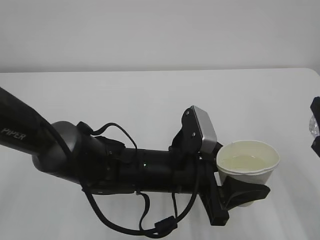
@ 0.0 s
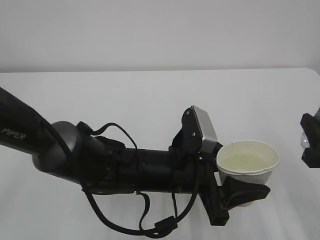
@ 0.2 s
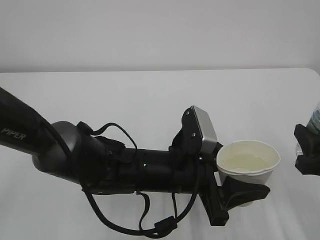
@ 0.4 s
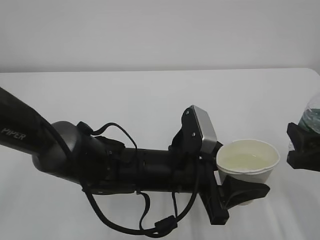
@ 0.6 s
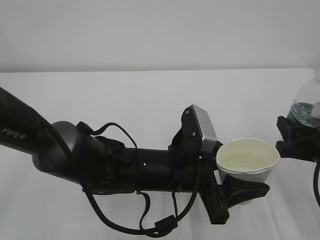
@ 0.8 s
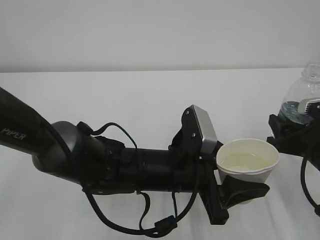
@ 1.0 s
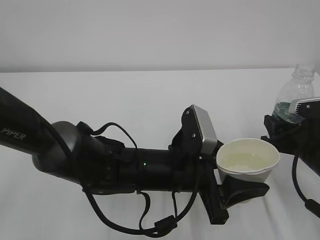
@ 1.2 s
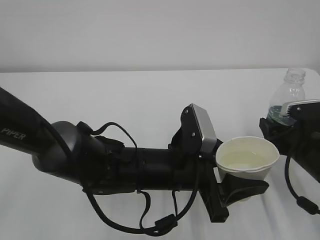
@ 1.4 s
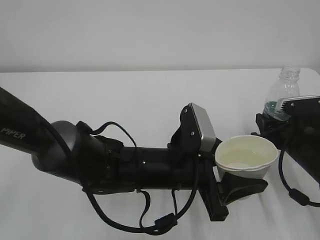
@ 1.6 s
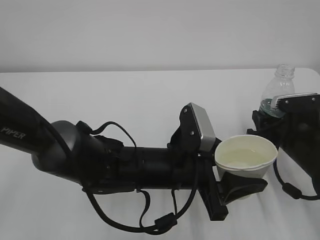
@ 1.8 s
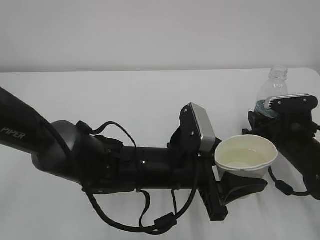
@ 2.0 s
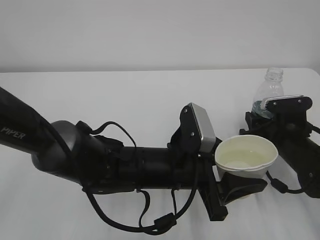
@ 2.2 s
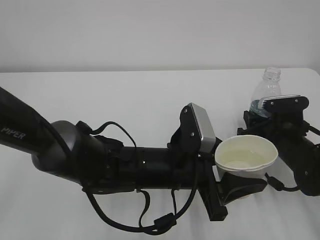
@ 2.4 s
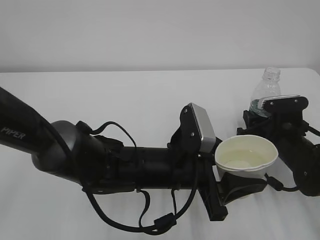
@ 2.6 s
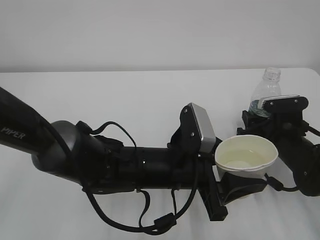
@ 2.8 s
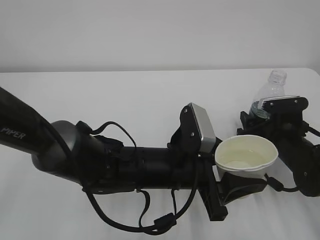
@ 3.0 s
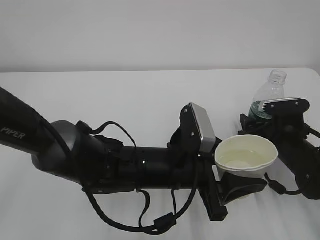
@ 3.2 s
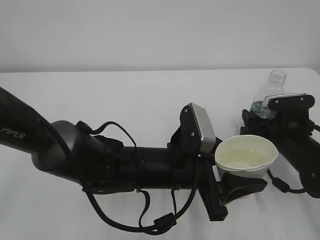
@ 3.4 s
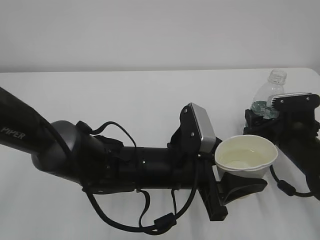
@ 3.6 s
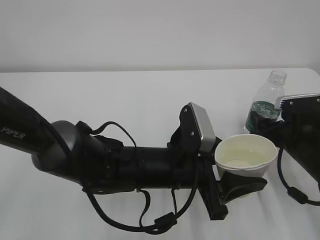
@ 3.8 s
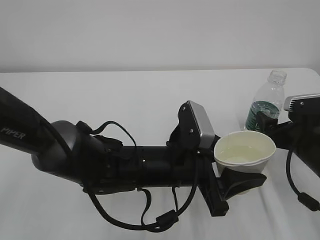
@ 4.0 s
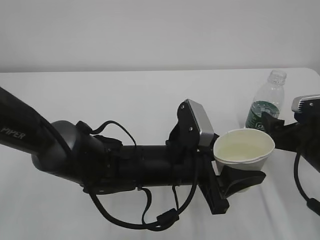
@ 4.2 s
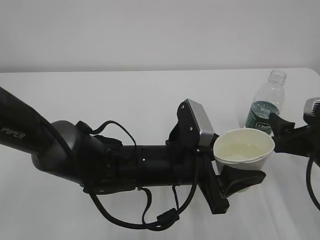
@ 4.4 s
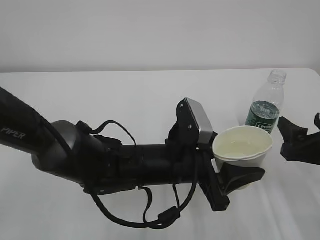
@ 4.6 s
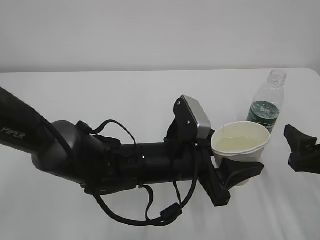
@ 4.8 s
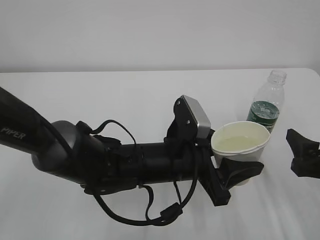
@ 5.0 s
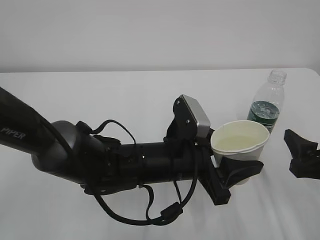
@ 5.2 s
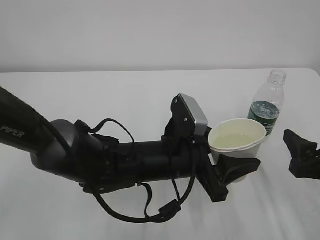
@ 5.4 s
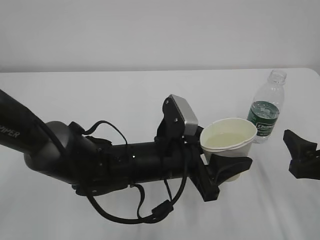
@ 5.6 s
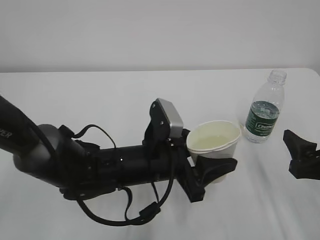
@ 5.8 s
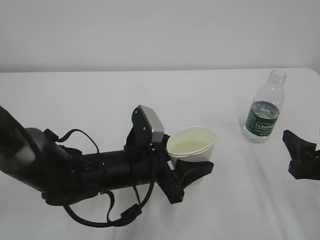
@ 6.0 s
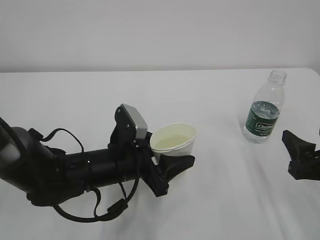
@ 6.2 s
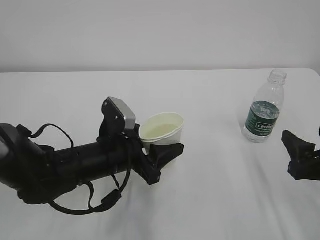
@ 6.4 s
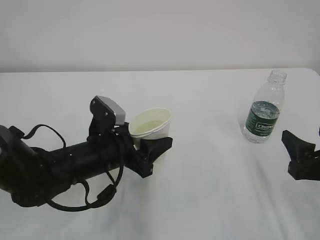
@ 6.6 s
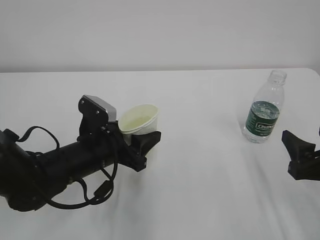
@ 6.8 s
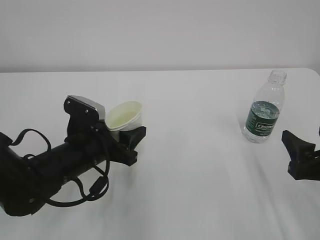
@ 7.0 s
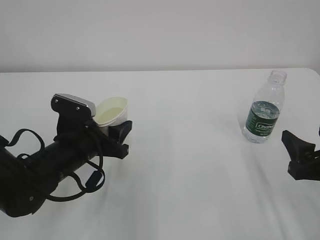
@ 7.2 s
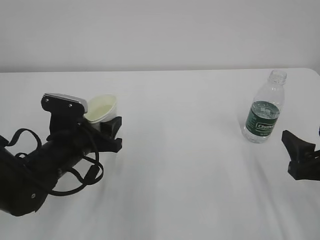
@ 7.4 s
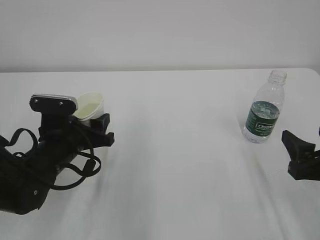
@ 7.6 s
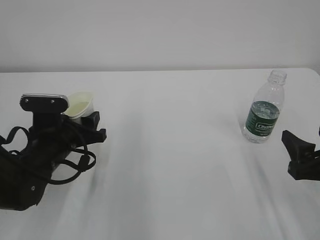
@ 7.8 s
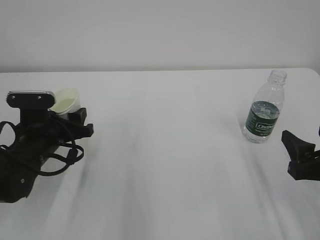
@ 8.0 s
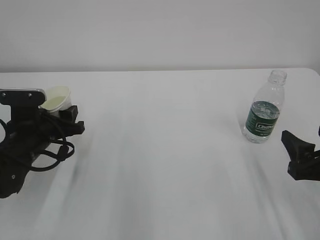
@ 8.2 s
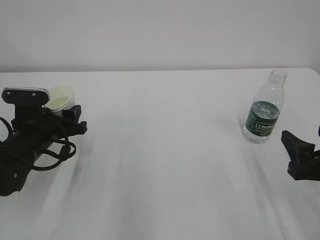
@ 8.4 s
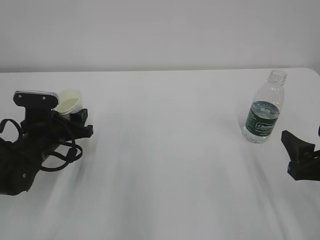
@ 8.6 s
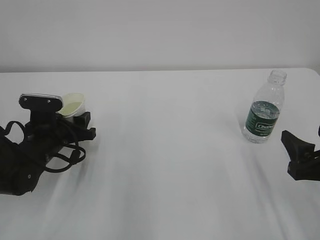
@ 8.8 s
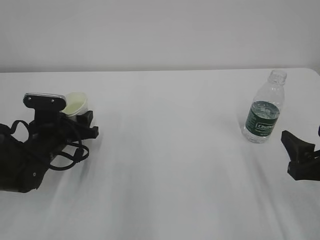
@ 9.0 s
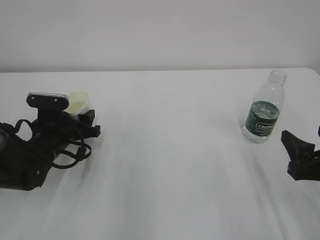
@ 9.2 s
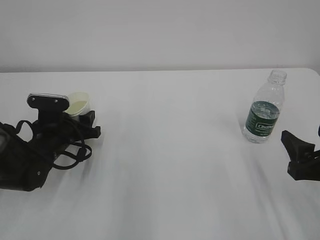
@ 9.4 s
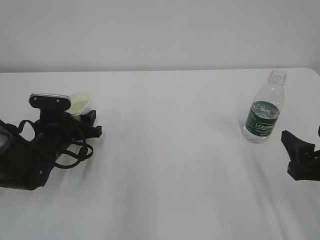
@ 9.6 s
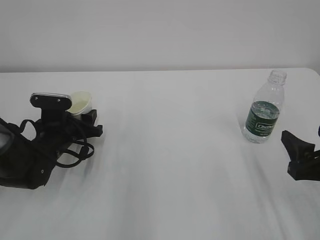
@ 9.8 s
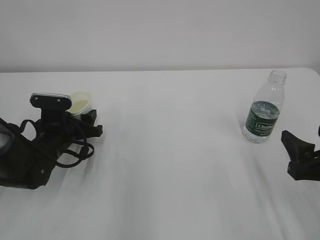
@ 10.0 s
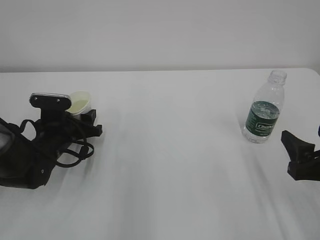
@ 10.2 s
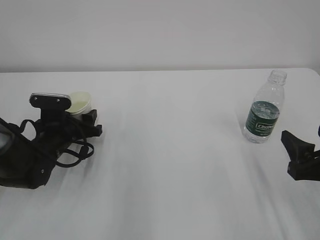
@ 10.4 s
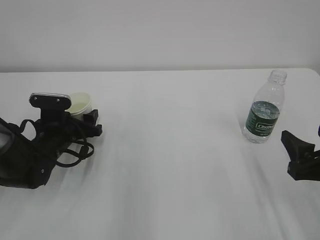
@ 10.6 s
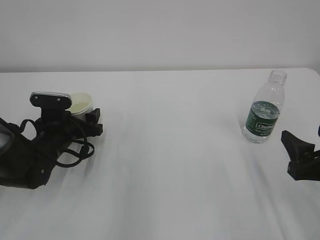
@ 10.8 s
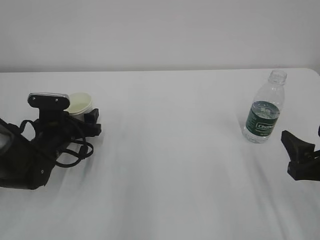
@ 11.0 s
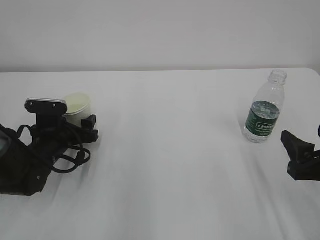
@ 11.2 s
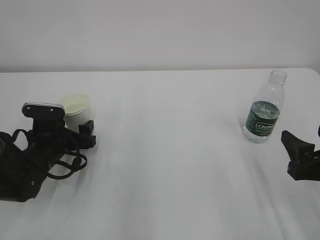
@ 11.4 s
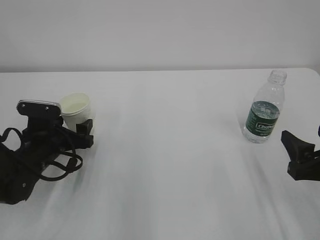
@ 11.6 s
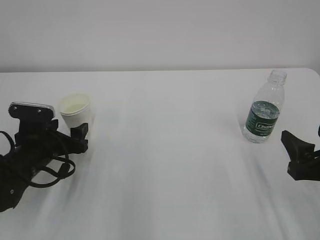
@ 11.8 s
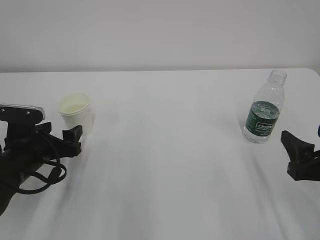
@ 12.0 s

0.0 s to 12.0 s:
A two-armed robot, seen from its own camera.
0.0 to 1.6 s: The right gripper is displaced forward and downward by some 15 cm.
1.6 to 3.0 s: The right gripper ends up some 5 cm from where it was, and opens its fingers.
3.0 to 4.4 s: The right gripper shifts about 10 cm backward and upward.
4.4 to 6.0 s: The right gripper heads backward, covering roughly 5 cm, while the left gripper goes about 5 cm to the left.
6.0 to 7.6 s: The left gripper shifts some 10 cm to the left.
7.6 to 9.0 s: The left gripper heads forward, covering roughly 5 cm.
9.0 to 10.4 s: The grippers make only small movements.
10.4 to 12.0 s: The left gripper goes approximately 5 cm backward, and opens up.

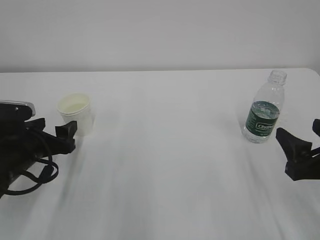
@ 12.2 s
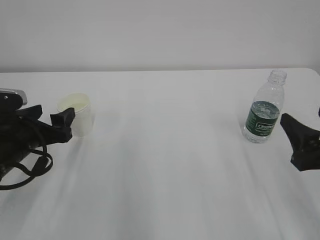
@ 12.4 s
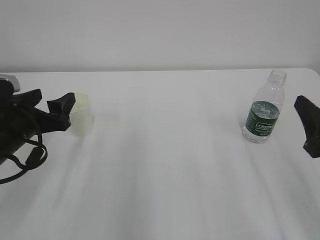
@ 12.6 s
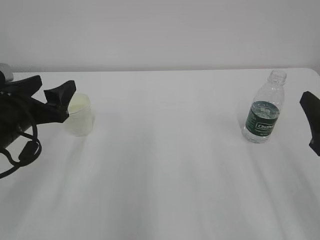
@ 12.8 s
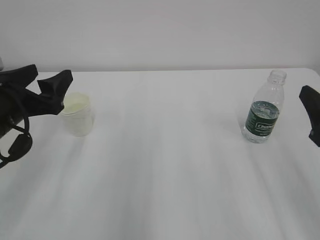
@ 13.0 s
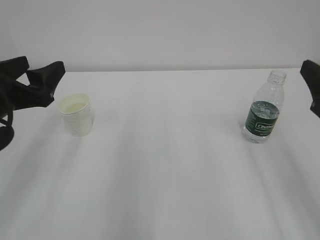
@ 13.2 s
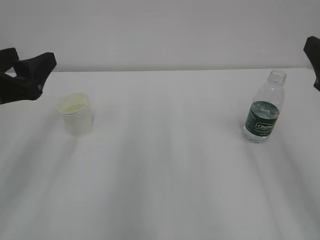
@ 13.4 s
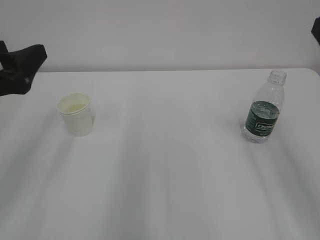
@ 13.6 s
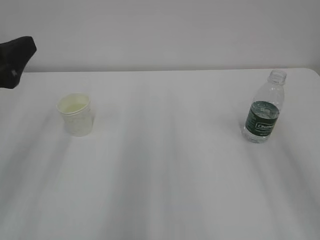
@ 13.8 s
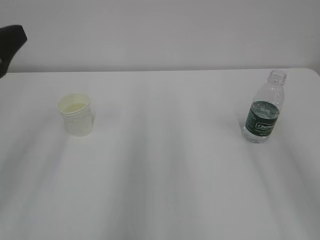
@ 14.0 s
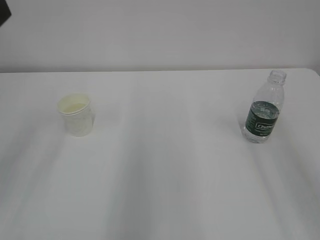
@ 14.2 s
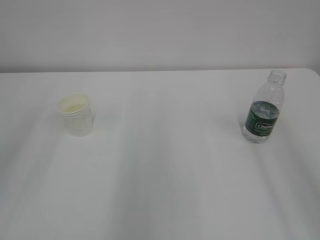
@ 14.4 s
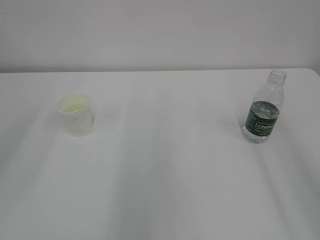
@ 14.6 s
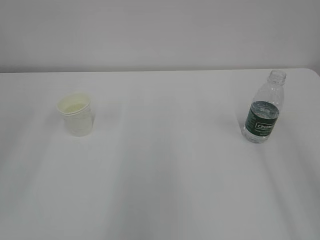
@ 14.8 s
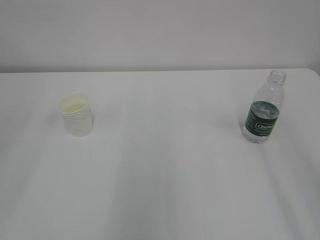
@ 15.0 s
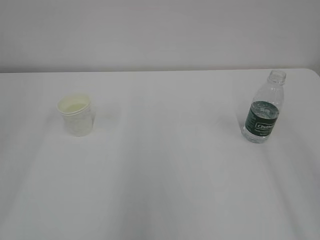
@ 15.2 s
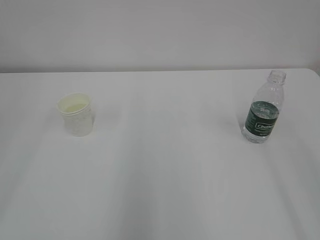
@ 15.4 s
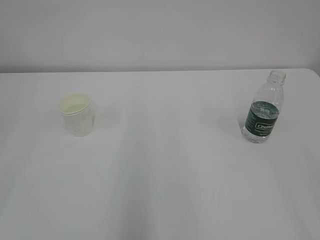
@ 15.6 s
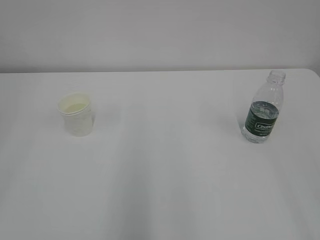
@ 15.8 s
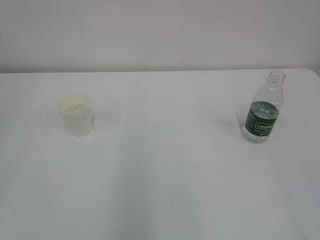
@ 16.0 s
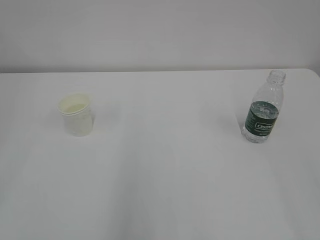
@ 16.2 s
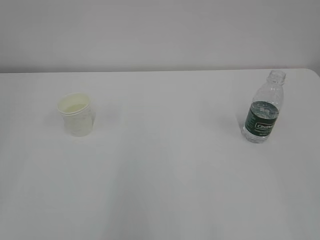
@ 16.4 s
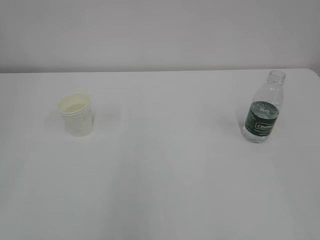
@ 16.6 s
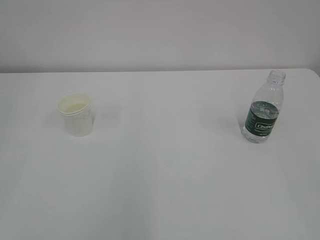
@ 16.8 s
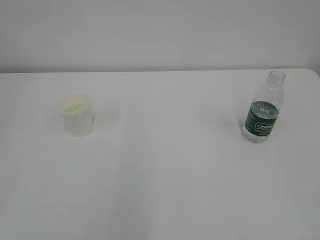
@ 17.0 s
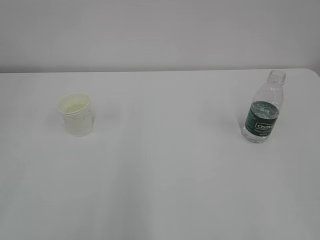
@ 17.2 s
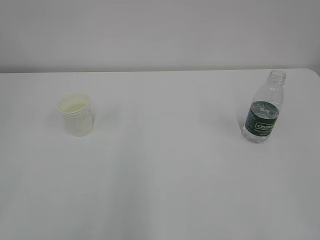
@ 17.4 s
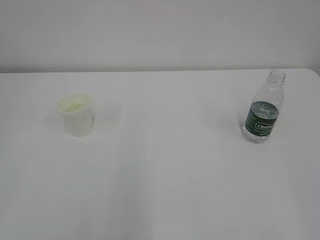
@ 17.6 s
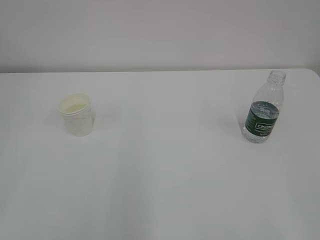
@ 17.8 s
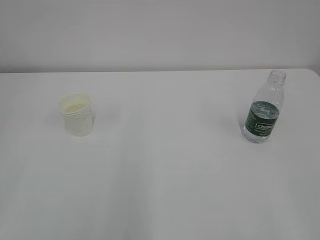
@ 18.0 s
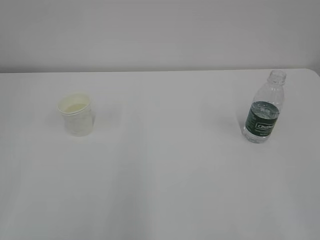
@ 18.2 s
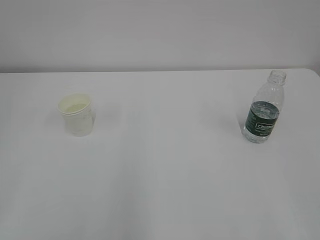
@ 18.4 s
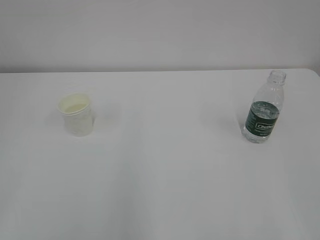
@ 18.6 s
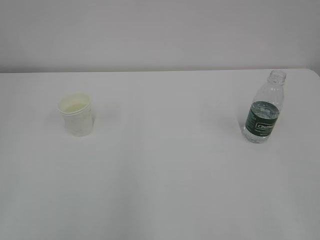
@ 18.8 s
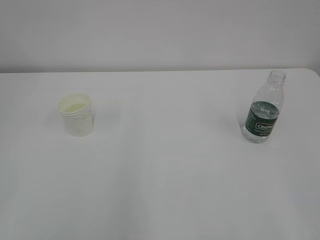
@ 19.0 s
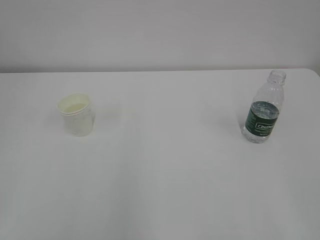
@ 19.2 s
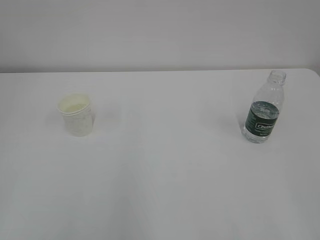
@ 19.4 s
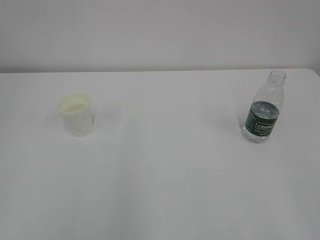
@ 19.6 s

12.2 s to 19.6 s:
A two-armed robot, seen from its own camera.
12.2 to 13.6 s: The two grippers go some 15 cm upward.
13.6 to 15.2 s: The left gripper travels backward and upward by about 20 cm.
